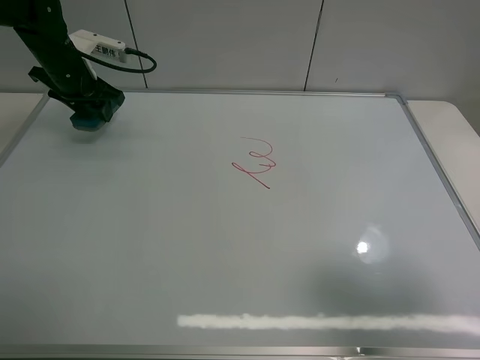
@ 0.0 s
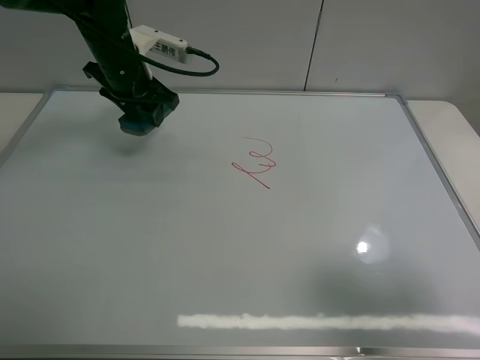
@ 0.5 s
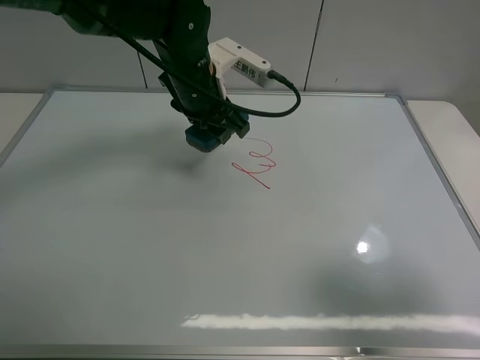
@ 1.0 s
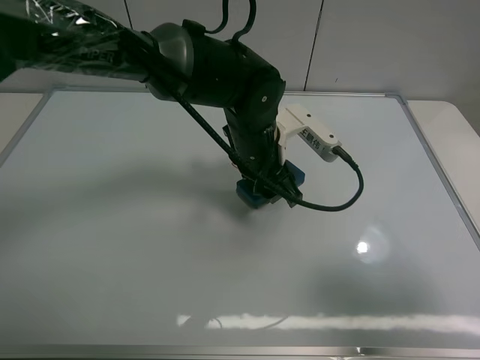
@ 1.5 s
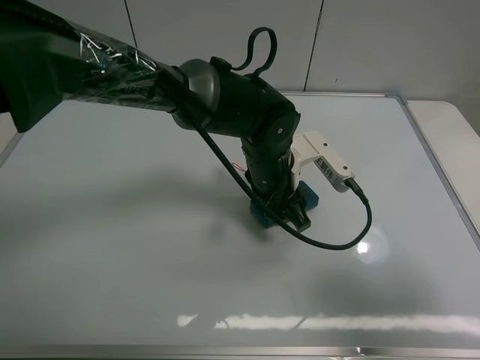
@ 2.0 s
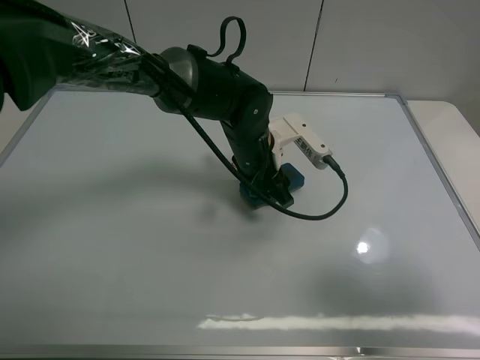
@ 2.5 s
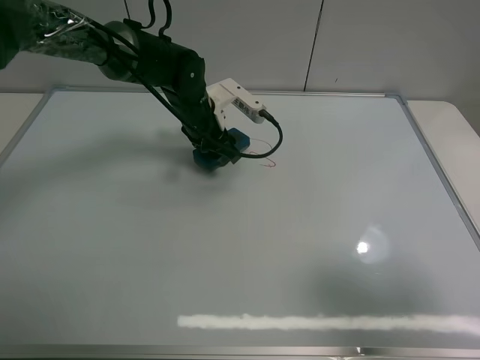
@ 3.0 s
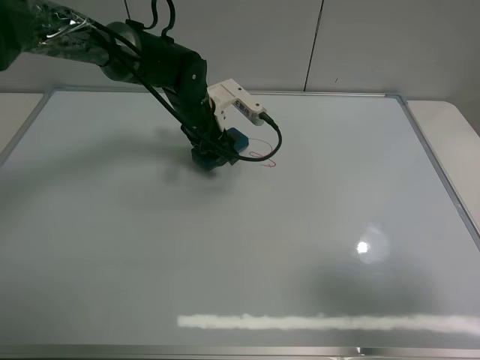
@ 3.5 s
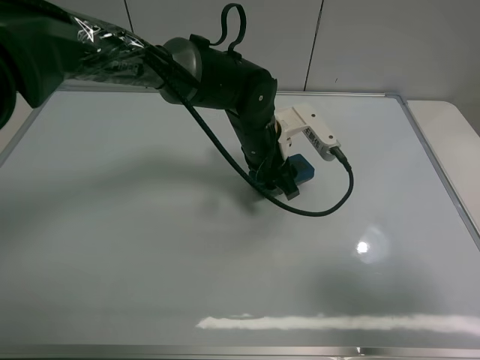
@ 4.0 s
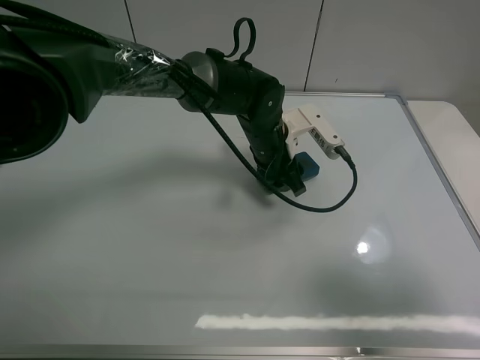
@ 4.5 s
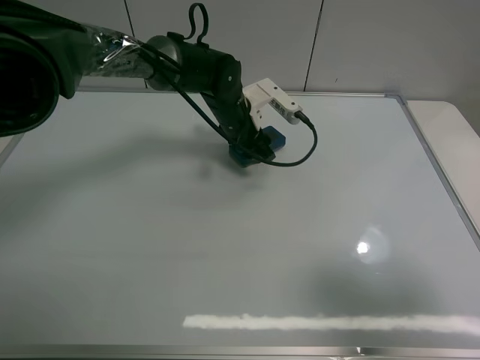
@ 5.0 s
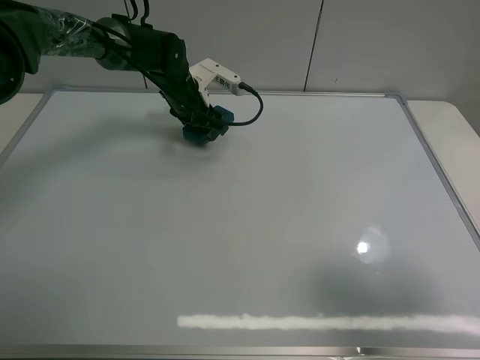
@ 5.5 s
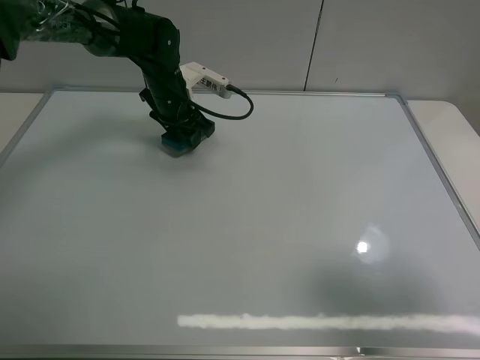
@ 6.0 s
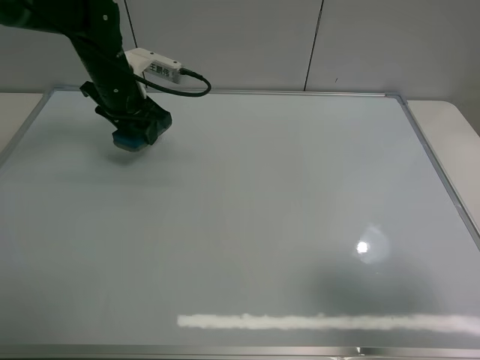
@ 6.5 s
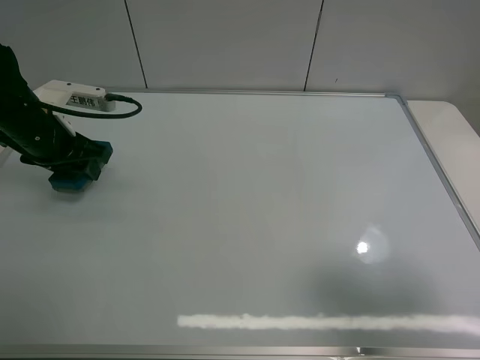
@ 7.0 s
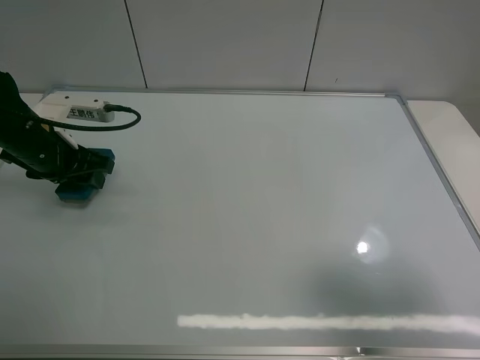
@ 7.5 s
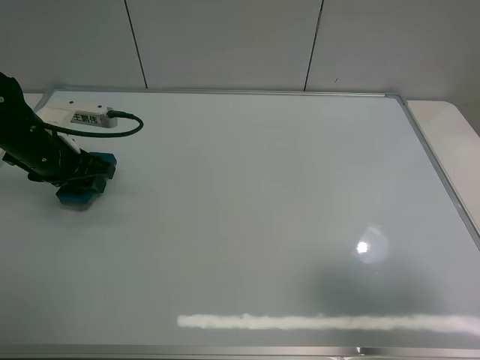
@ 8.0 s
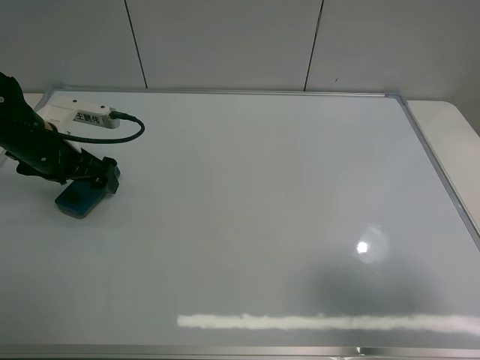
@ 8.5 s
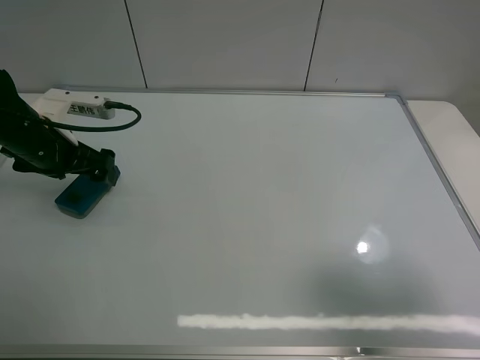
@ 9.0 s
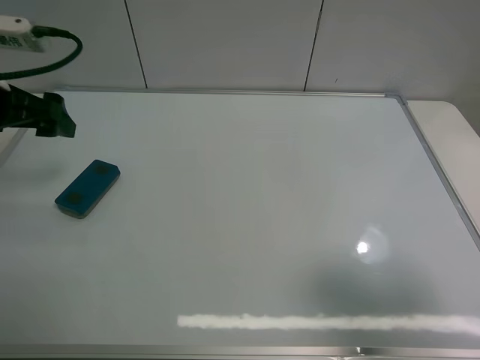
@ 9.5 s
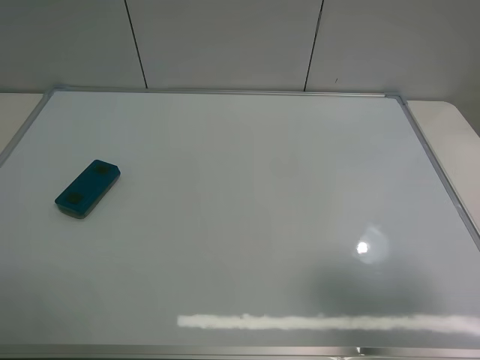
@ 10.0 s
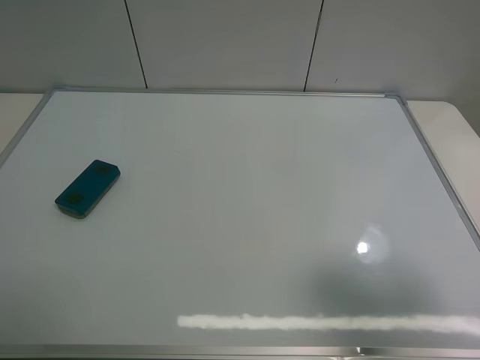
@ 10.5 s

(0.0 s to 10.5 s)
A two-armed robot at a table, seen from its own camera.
Task of the whole recording: use the left claw to pick up the whiteboard eraser, wipe the notes on the whiteboard clean, and then put them back in place.
Step, 0.0 s - 6.0 s: Grasp the eraser and wipe the blackboard with the left gripper.
Step, 6.5 s - 9.0 s: Place the eraser with the left gripper.
0.0 s - 2.0 s: The left gripper moves to the right and backward, approximately 35 cm.
2.0 s - 4.0 s: The left gripper moves forward, about 5 cm, and moves about 15 cm to the left and comes back.
4.0 s - 6.5 s: The left gripper heads to the left, covering about 25 cm.
6.5 s - 8.5 s: The left gripper travels backward and to the left by approximately 10 cm, and opens.
8.5 s - 10.5 s: The left gripper heads backward and upward, covering approximately 35 cm.

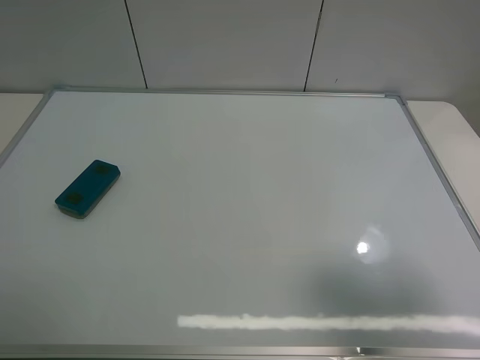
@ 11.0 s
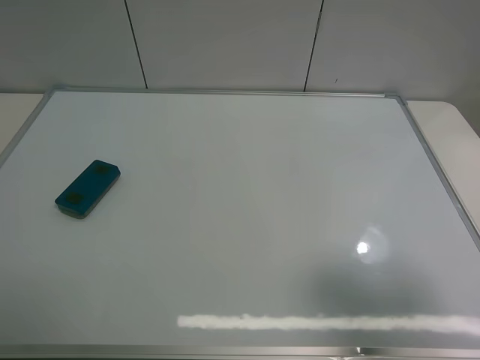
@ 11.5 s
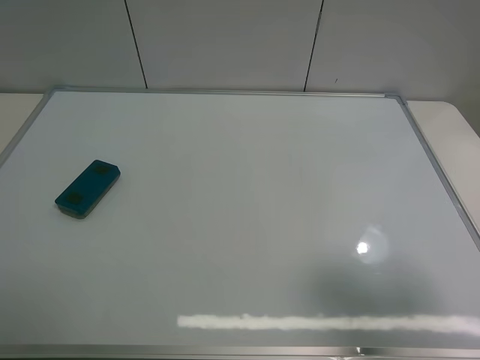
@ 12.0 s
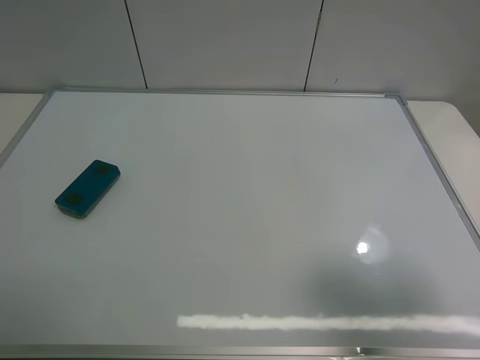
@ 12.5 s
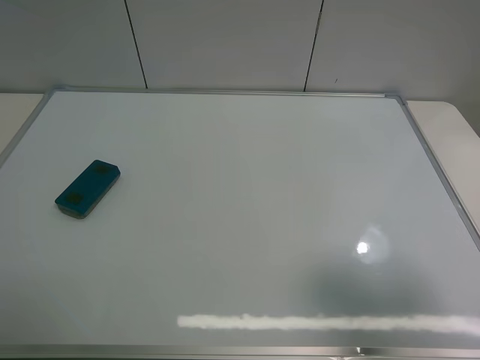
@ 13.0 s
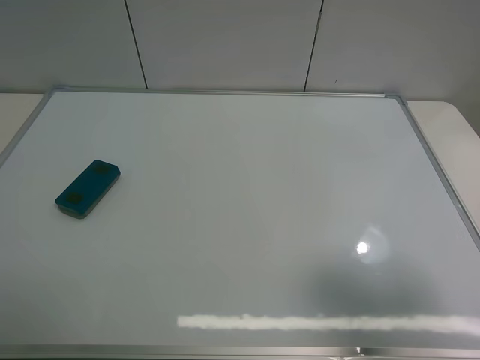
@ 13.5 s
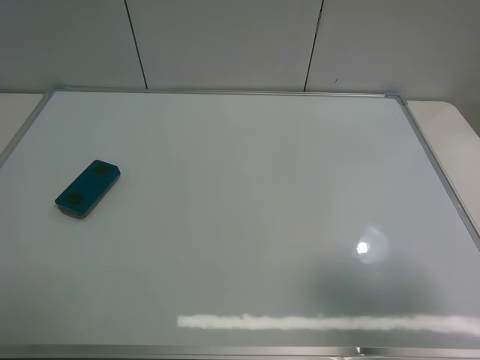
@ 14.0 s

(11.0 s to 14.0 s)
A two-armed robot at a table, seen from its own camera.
Task of the whole recording: use the left claw to pick up the whiteboard eraser, wipe the notes on the whiteboard clean, and then put them back in place.
12.5 s - 14.0 s: The two grippers keep their place.
